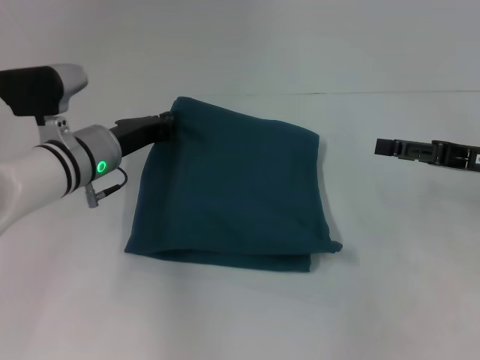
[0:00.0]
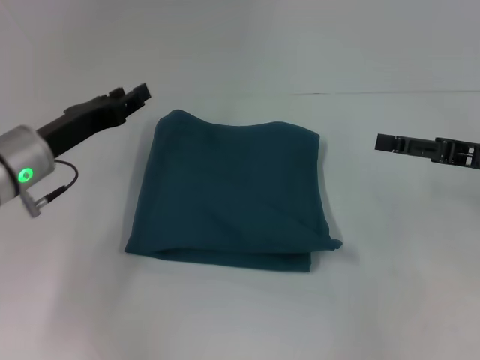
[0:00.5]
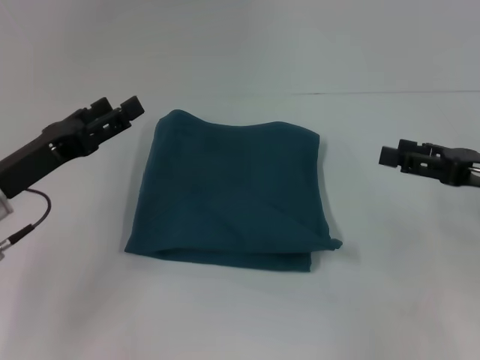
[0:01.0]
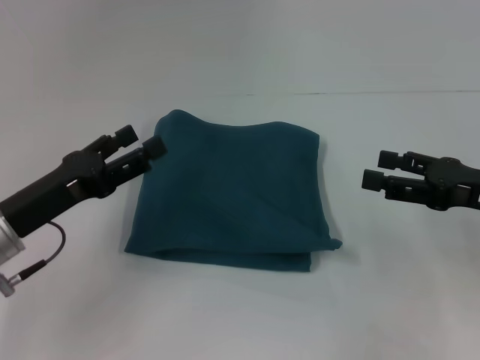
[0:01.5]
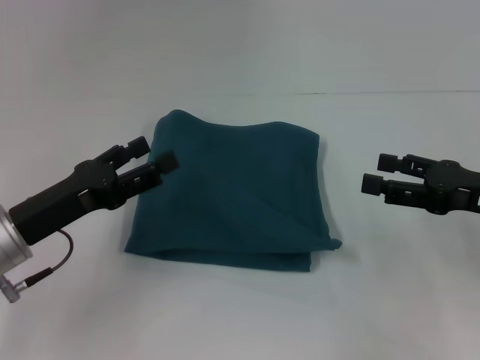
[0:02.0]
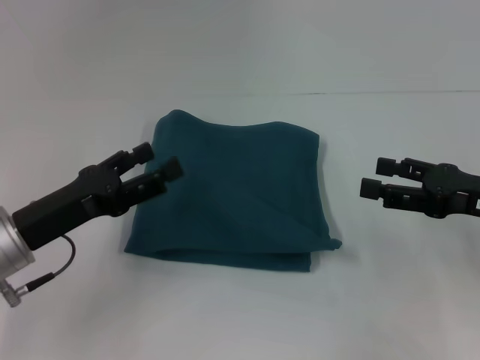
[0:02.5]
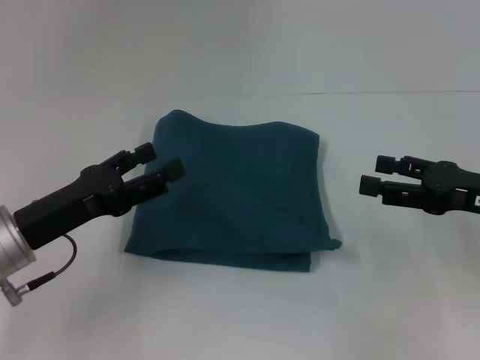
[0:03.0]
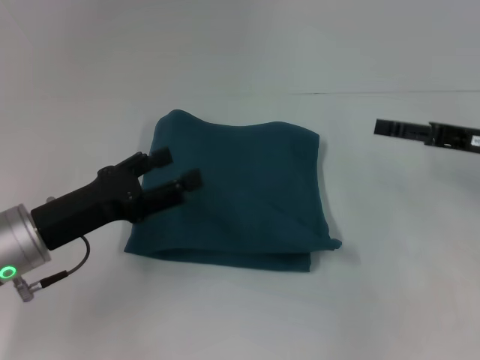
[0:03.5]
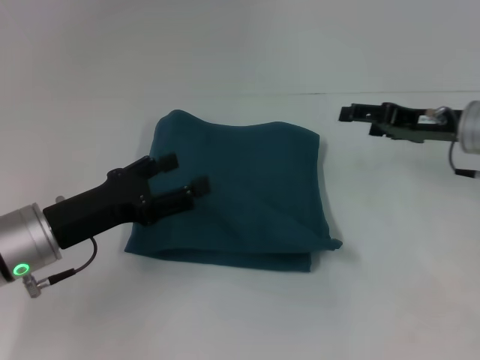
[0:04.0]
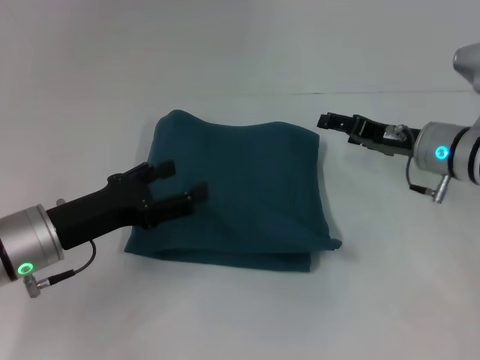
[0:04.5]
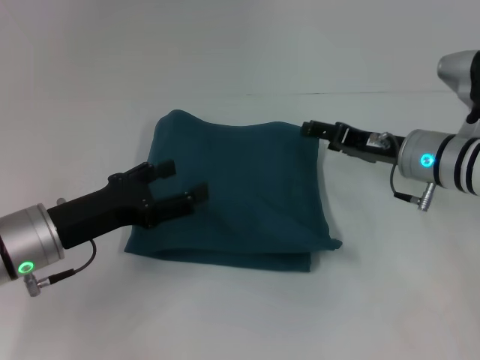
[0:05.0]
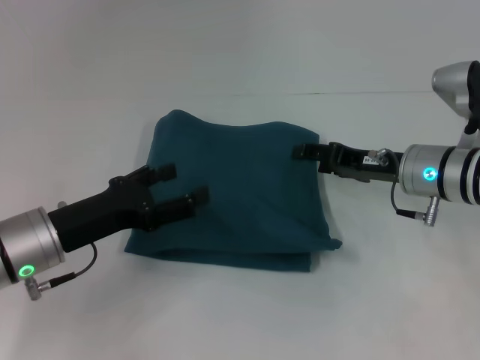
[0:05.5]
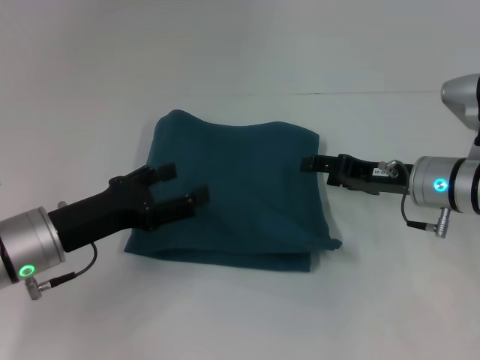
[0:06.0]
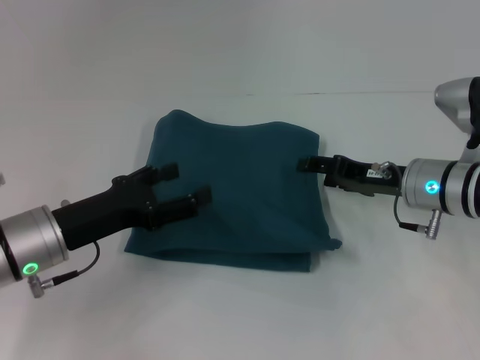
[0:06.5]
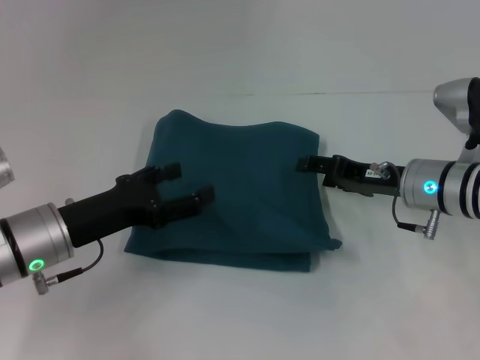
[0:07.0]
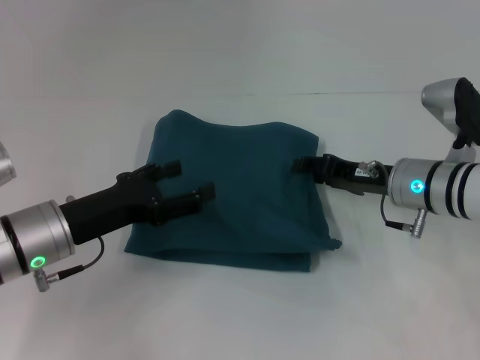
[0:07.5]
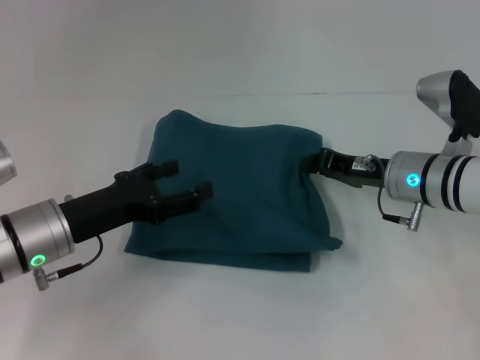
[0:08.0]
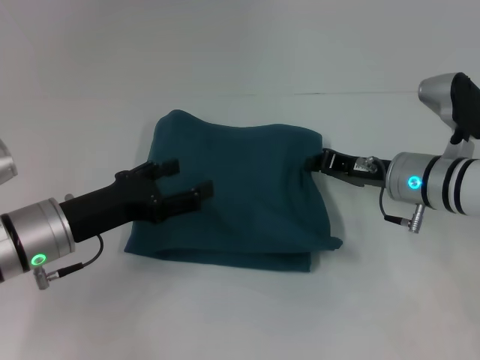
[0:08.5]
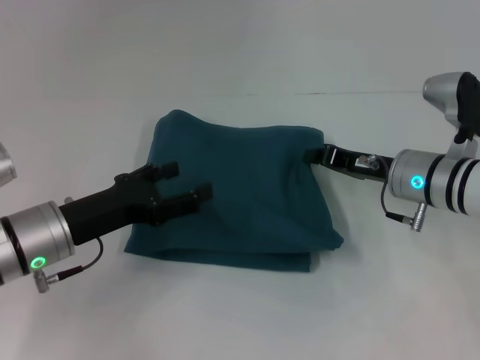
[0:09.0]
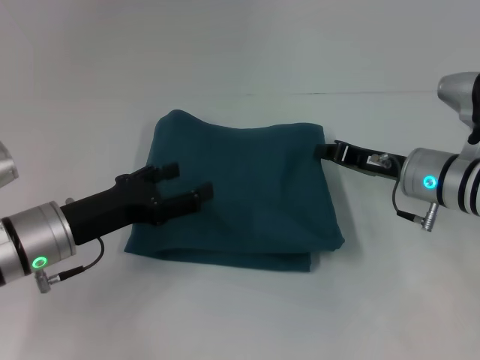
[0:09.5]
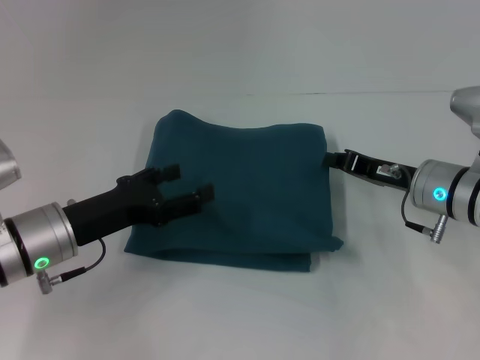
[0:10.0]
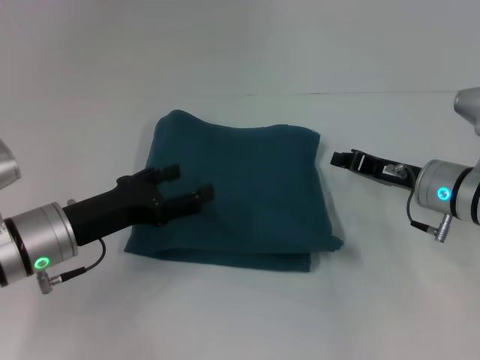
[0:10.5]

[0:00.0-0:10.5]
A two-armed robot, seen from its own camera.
0:00.0 to 0:02.0: The left gripper heads backward and to the left, covering approximately 15 cm, and opens up.
0:02.0 to 0:04.0: The right gripper goes roughly 10 cm forward.
0:04.0 to 0:06.5: The right gripper is displaced downward by approximately 5 cm.
0:06.5 to 0:08.5: The right gripper closes its fingers.
0:08.5 to 0:10.5: The grippers make only small movements.

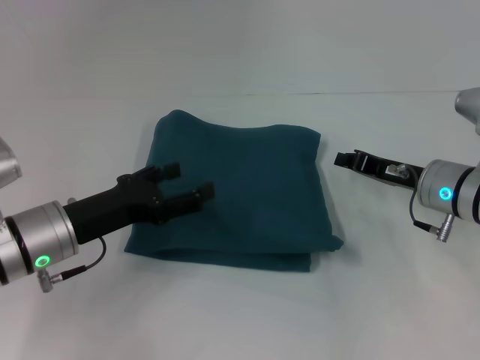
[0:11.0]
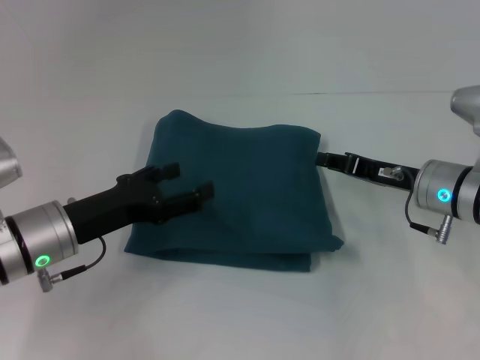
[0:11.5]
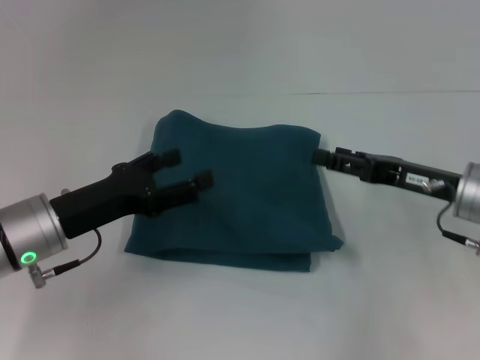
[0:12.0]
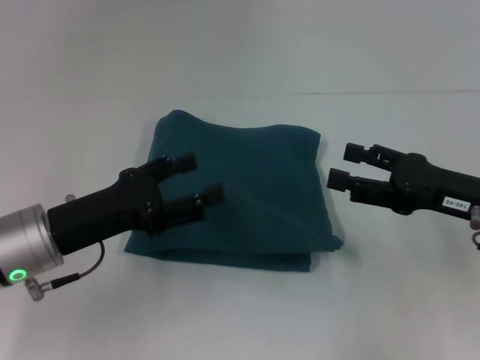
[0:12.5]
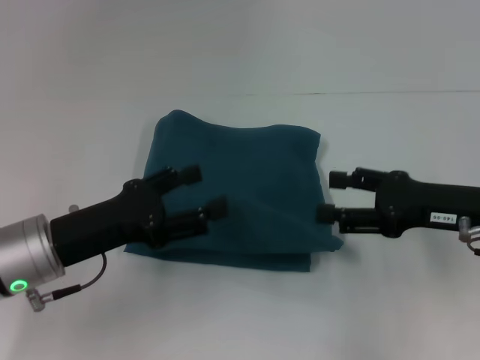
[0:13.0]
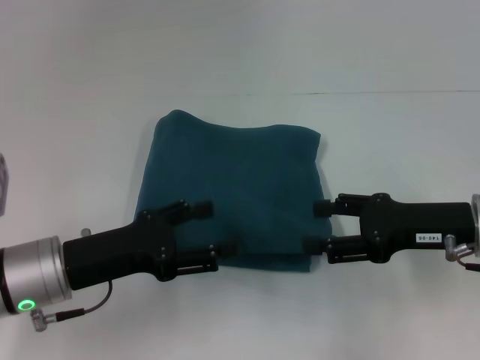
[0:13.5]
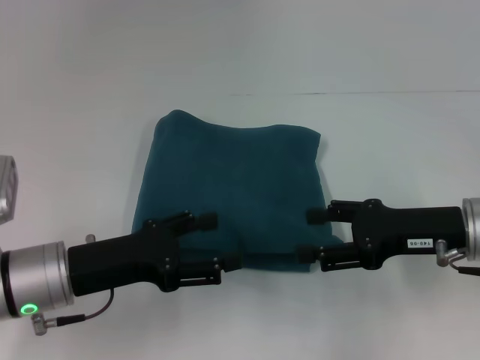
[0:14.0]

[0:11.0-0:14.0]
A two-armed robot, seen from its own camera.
0:11.0 to 0:12.5: The right gripper heads backward and upward, covering roughly 10 cm, and opens up.
